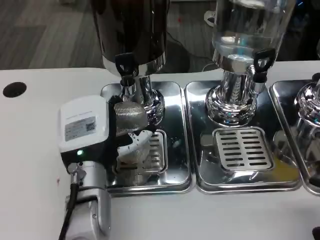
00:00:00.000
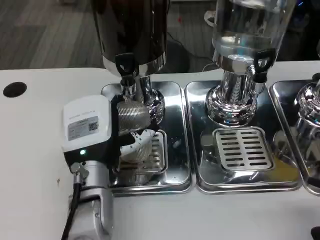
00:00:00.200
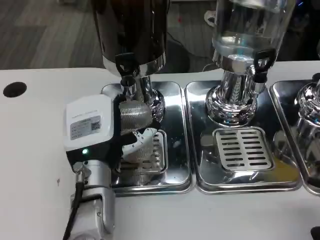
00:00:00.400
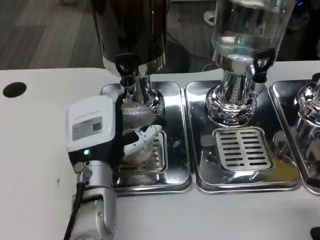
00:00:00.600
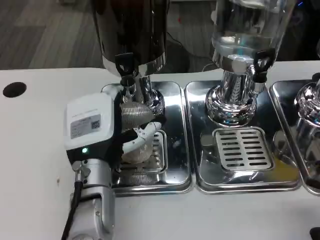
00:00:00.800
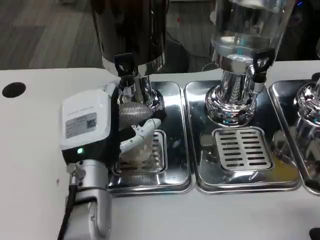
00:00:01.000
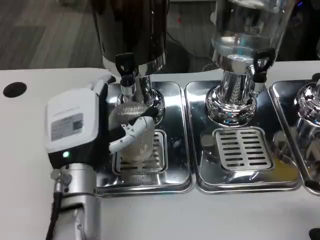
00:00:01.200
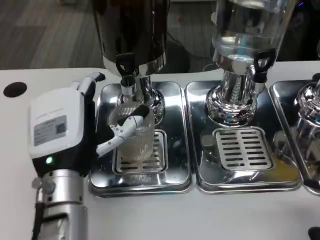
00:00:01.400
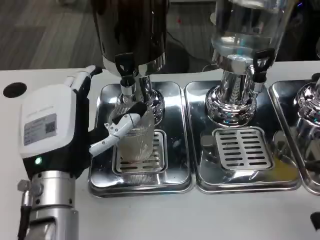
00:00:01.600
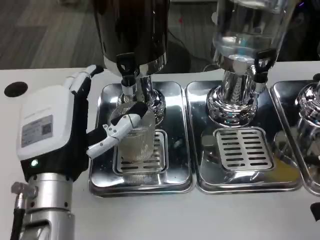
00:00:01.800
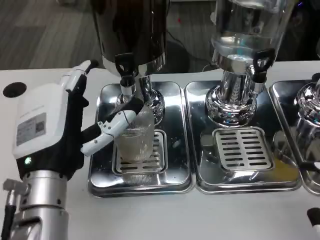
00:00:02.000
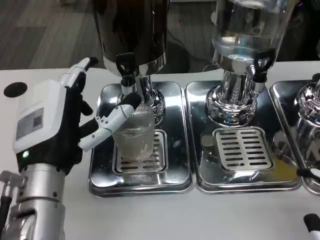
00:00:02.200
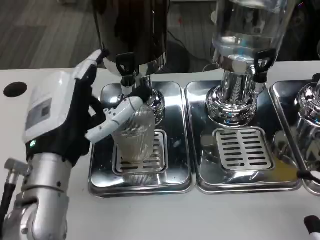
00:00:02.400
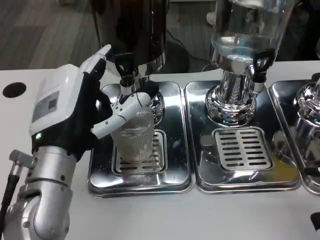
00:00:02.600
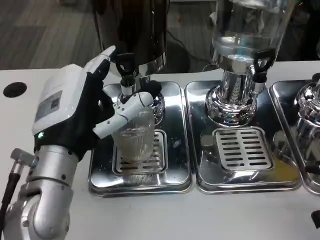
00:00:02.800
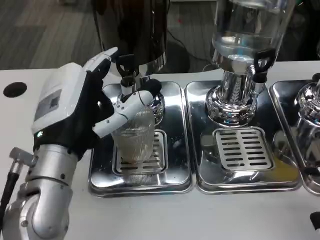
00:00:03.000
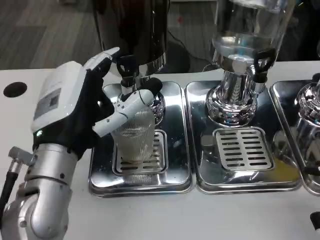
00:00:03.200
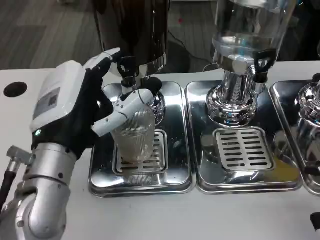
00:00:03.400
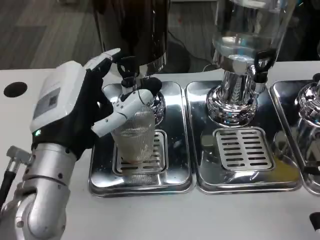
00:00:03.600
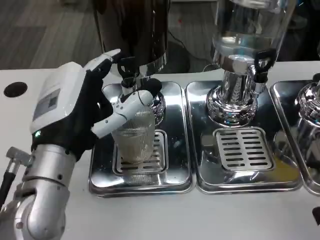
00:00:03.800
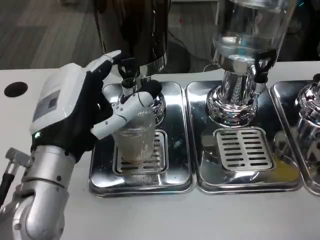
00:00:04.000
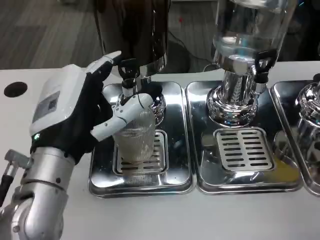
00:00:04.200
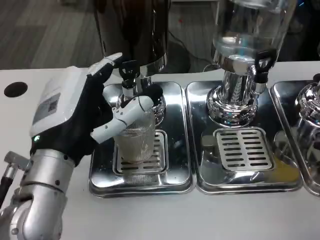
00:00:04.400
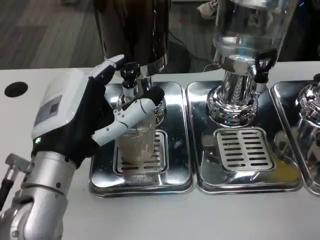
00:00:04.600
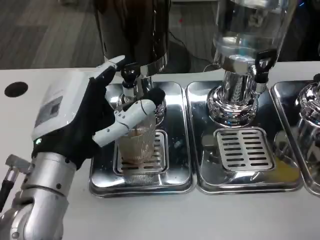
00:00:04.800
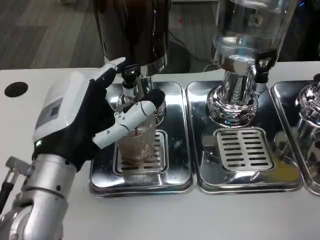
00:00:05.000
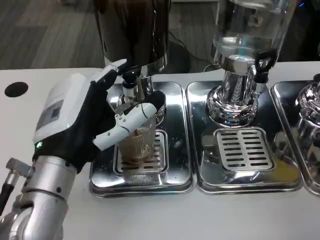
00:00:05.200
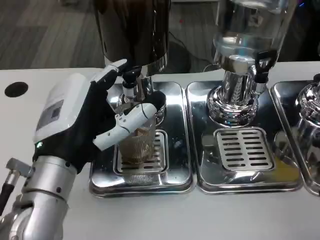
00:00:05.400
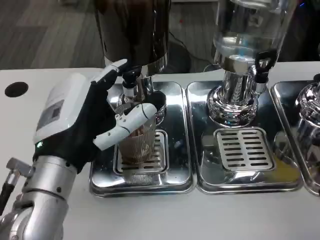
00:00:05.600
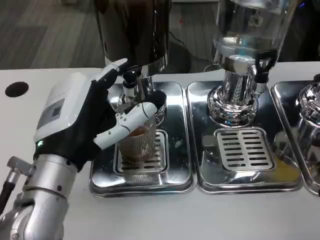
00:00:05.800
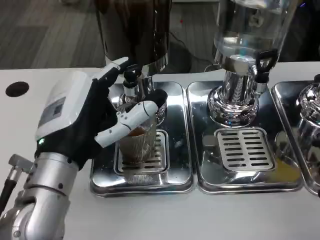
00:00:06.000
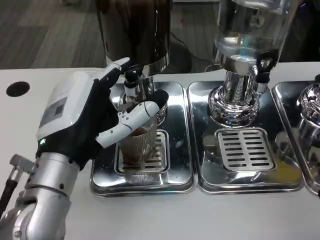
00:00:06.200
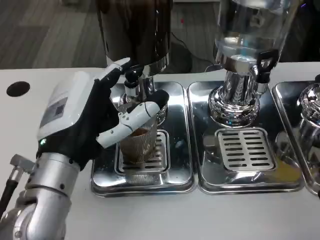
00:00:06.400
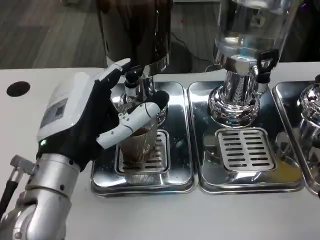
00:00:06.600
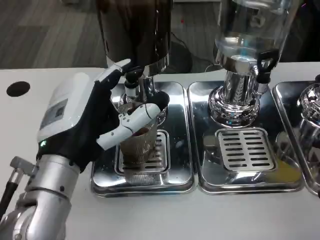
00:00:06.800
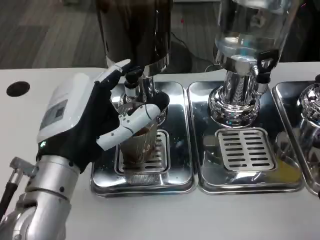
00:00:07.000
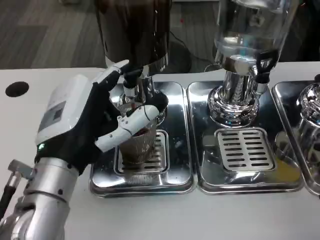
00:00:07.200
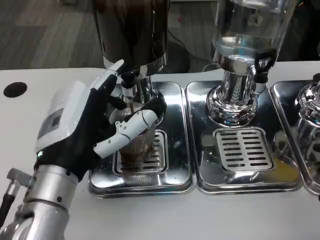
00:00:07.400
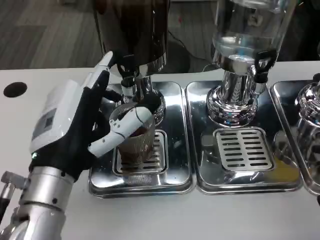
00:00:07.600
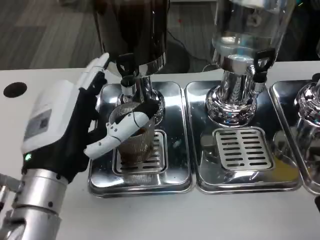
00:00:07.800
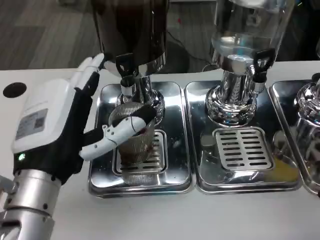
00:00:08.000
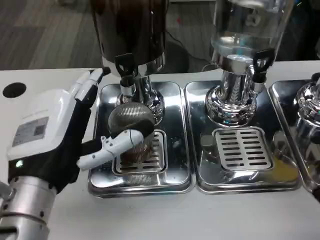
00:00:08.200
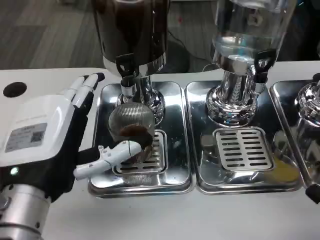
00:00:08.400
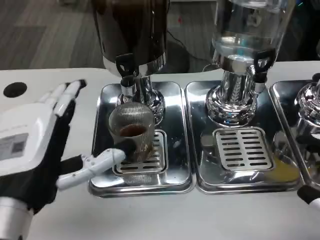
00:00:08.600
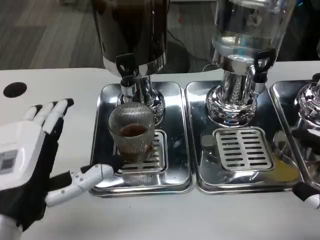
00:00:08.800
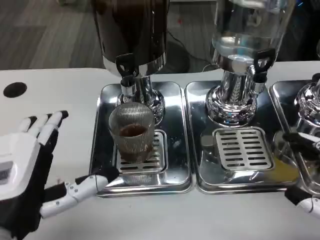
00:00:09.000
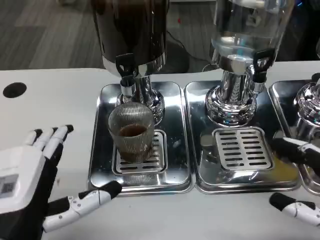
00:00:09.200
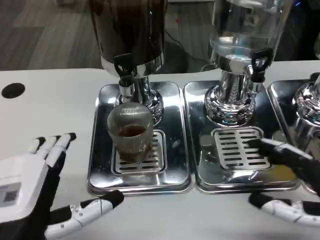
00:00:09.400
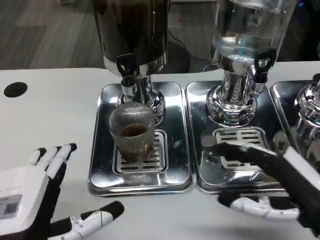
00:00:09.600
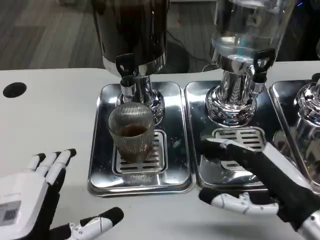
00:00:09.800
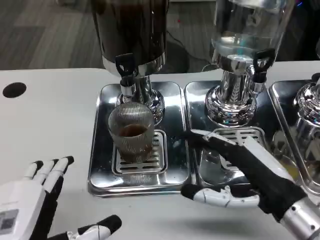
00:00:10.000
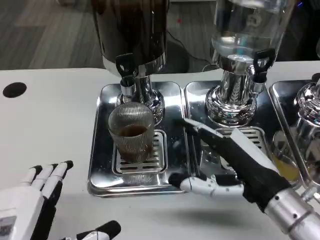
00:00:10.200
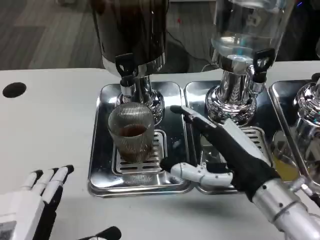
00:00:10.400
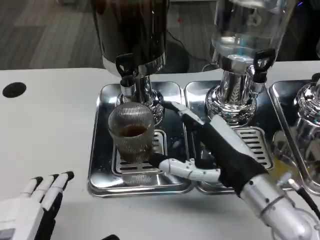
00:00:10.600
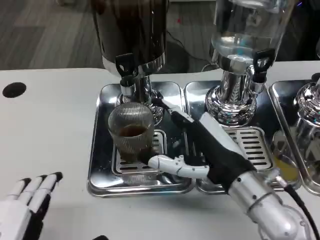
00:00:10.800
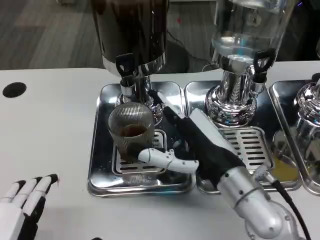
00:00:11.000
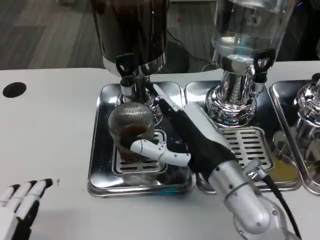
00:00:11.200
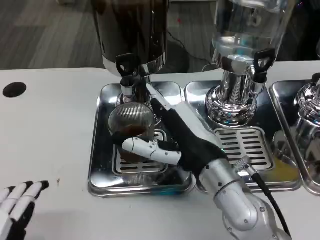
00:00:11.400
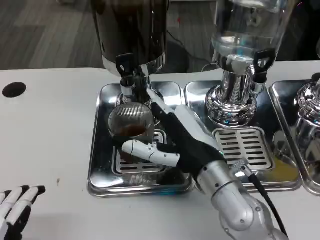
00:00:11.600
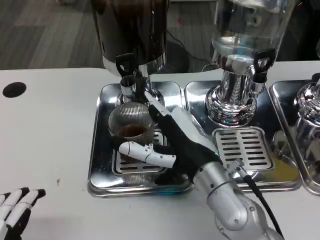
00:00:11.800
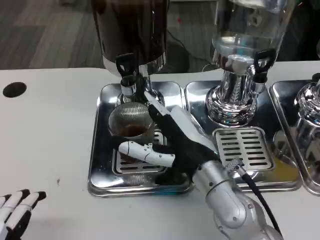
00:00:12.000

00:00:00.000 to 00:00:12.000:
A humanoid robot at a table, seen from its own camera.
Task of the whole recording: Grasp the cup under the faucet to collect the drink, then remove the cup.
00:00:00.000 to 00:00:01.600: The left hand ends up roughly 5 cm from where it was.
00:00:01.600 to 00:00:03.000: The hands make only small movements.
00:00:03.000 to 00:00:04.400: There are only small adjustments of the hands.
00:00:04.400 to 00:00:06.000: Both hands stay put.
00:00:06.000 to 00:00:07.600: The hands move only a little.
00:00:07.600 to 00:00:09.000: The left hand is displaced backward by approximately 5 cm.
00:00:09.000 to 00:00:10.400: The left hand goes about 5 cm backward, while the right hand heads to the left and forward, covering approximately 15 cm.
00:00:10.400 to 00:00:12.000: The right hand is displaced to the left by approximately 10 cm.

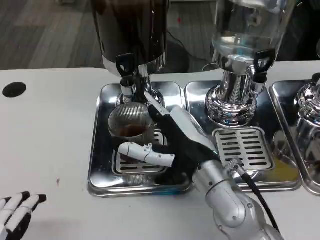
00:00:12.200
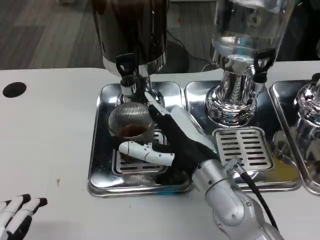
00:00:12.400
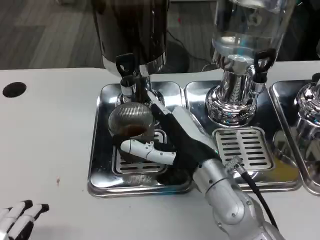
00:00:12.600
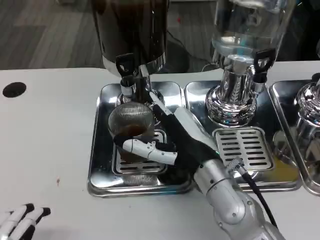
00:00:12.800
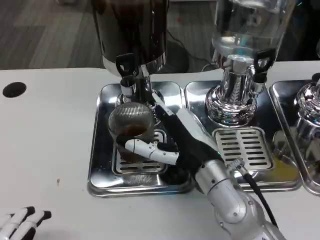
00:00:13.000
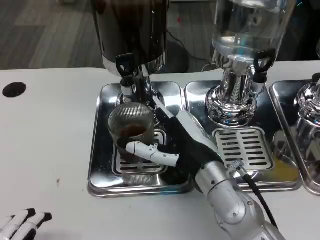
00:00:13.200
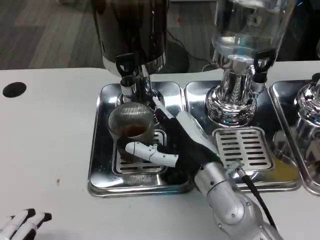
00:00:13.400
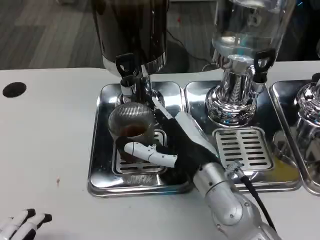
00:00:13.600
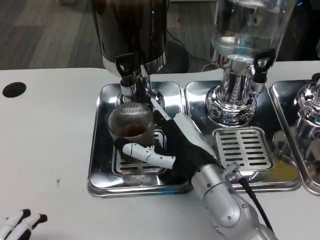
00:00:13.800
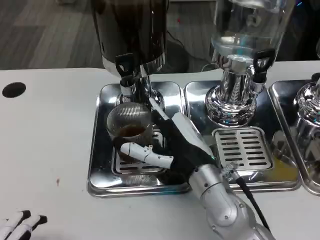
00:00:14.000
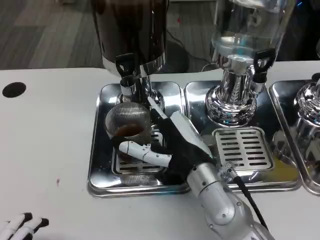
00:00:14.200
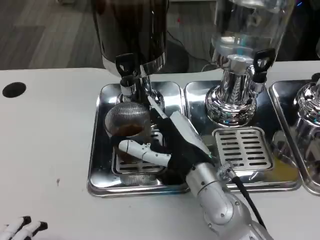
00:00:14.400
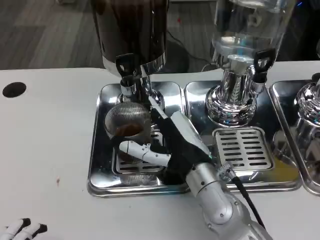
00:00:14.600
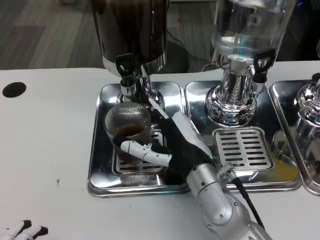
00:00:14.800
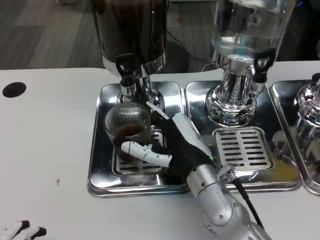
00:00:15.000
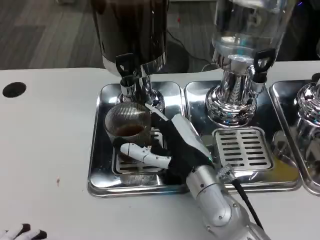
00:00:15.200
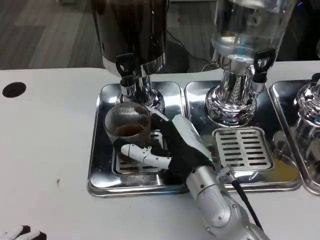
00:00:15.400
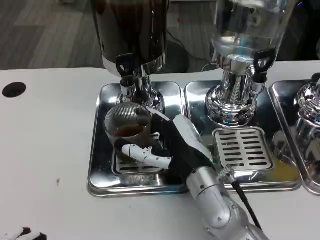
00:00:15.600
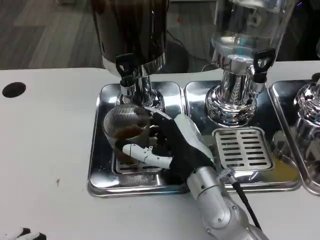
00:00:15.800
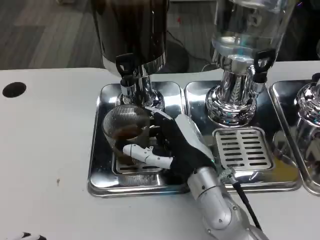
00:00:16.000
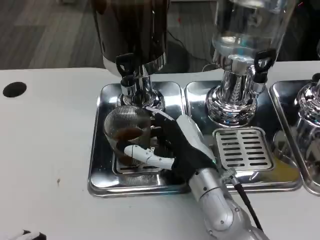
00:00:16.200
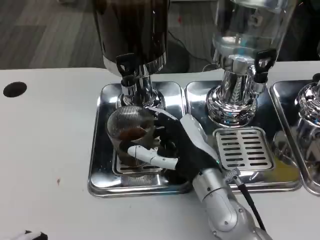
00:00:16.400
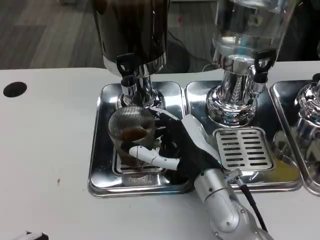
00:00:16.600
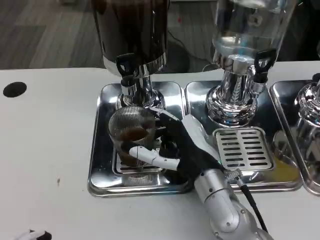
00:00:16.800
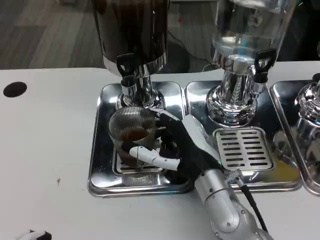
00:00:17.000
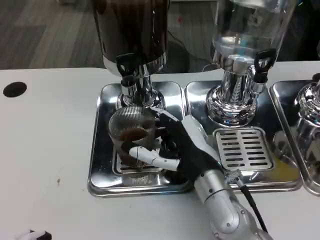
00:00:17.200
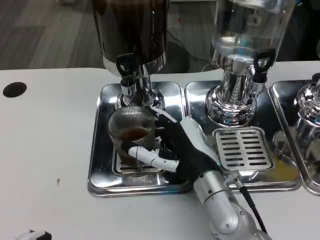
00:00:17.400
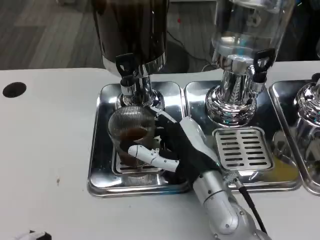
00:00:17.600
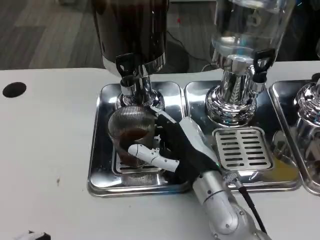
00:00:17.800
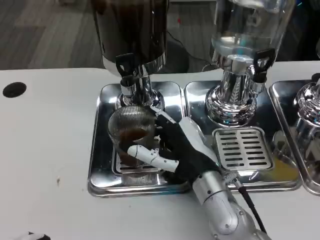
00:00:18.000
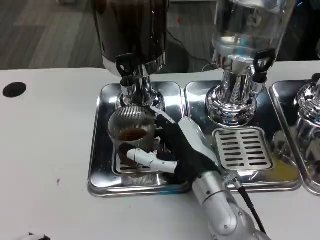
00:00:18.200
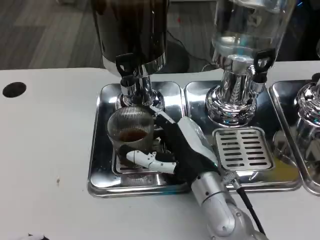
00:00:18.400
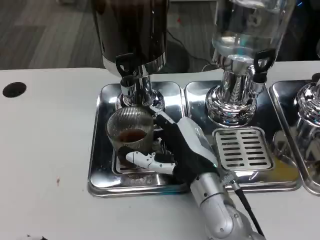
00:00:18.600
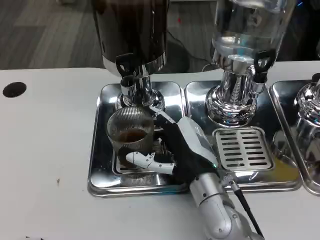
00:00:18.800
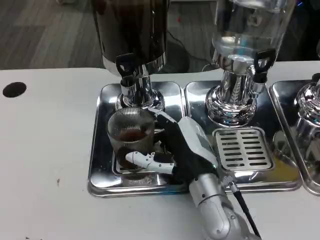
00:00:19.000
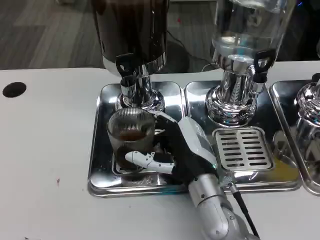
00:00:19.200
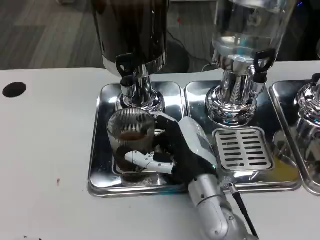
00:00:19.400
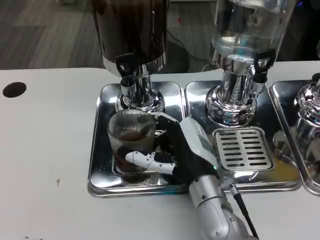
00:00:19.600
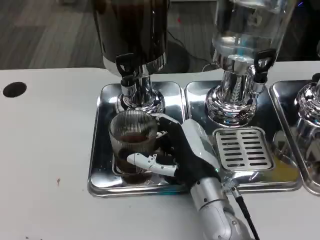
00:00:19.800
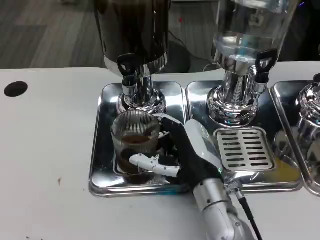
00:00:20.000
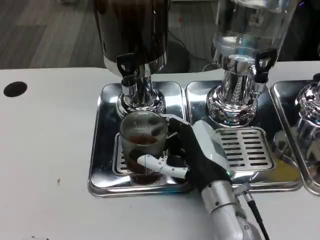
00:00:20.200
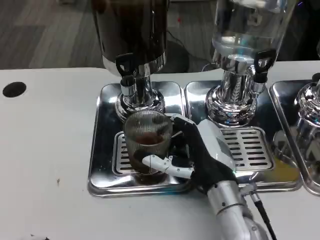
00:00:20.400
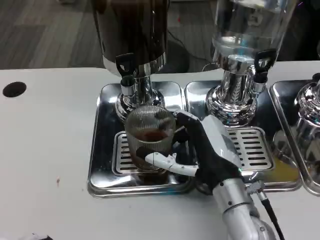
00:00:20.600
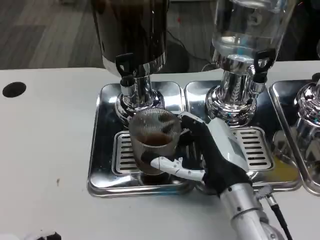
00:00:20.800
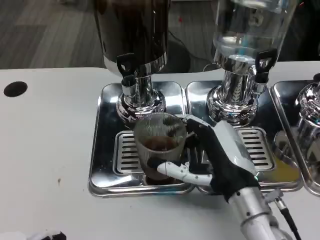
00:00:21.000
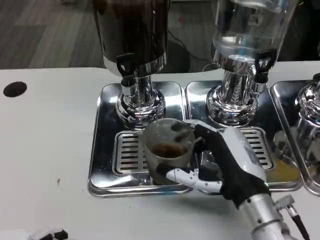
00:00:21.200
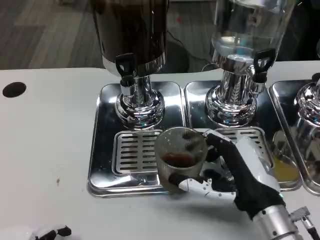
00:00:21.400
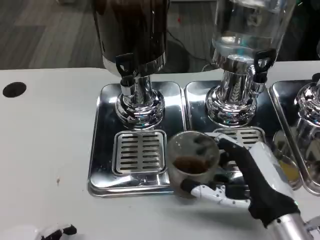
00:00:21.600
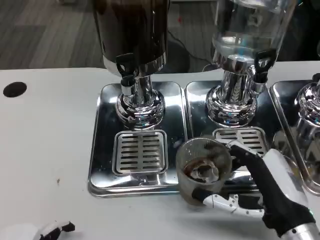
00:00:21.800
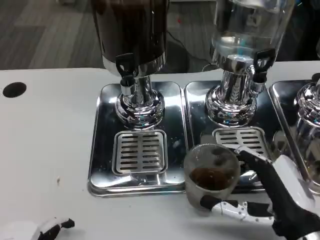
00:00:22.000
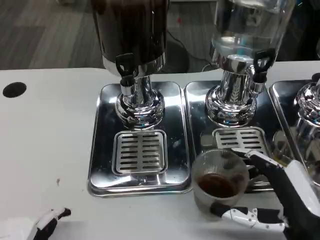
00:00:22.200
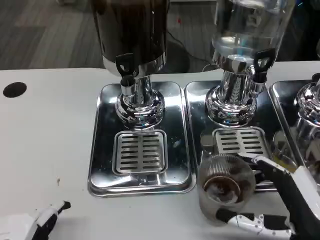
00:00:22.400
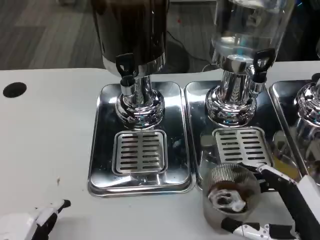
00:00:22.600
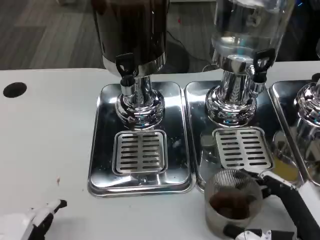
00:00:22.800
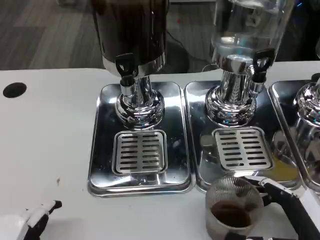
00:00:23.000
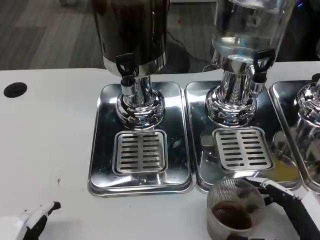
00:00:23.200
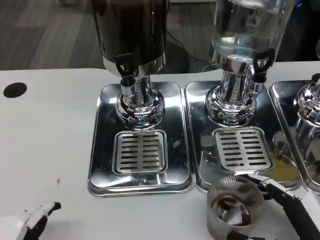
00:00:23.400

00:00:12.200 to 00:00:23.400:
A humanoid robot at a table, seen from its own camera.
Task of the whole recording: Grasp the cup under the faucet to collect the drink, then remove the cup.
00:00:12.200 to 00:00:13.800: The hands make only small movements.
00:00:13.800 to 00:00:15.400: Neither hand changes place.
00:00:15.400 to 00:00:17.000: The two hands keep their place.
00:00:17.000 to 00:00:18.600: Neither hand changes place.
00:00:18.600 to 00:00:20.200: There are only small adjustments of the hands.
00:00:20.200 to 00:00:21.800: The right hand goes roughly 15 cm to the right and backward.
00:00:21.800 to 00:00:23.400: The right hand moves backward, about 5 cm.
